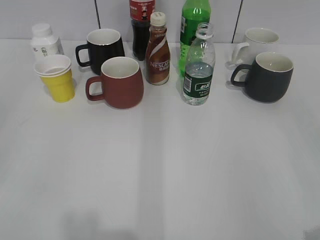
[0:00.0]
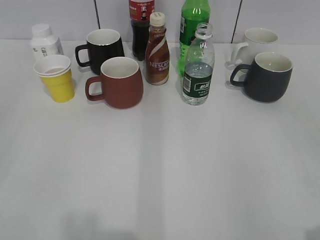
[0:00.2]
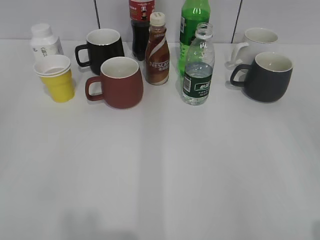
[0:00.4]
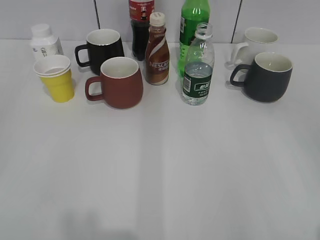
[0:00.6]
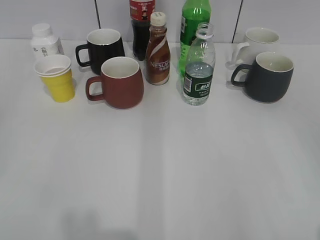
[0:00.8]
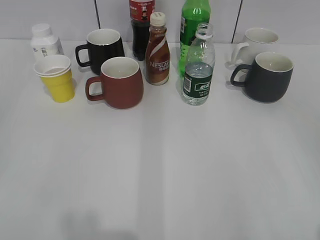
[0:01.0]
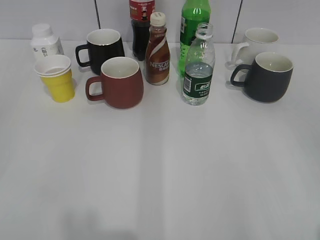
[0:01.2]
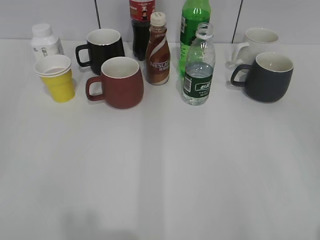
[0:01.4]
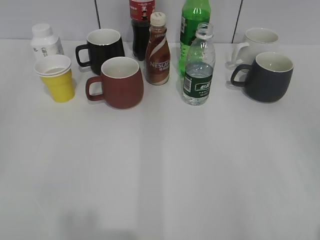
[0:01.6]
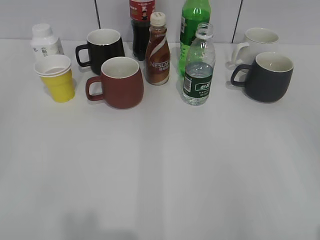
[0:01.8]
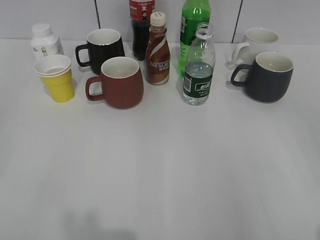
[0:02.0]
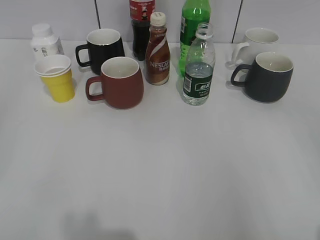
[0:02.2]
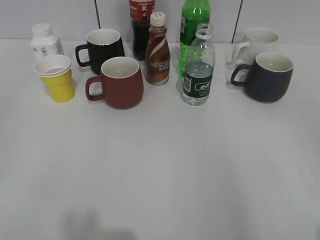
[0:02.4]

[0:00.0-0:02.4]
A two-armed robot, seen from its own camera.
0:01.2 to 0:02.4: Both grippers stay put.

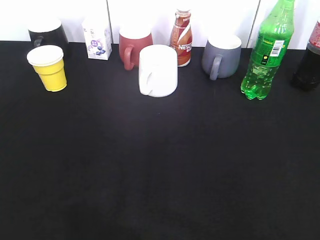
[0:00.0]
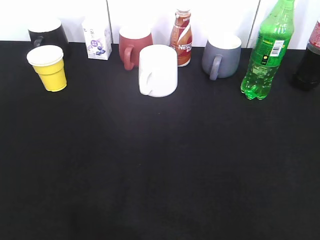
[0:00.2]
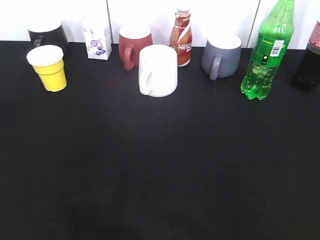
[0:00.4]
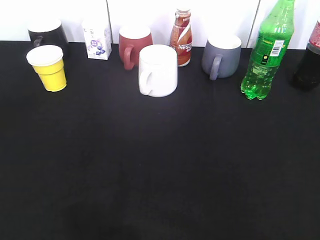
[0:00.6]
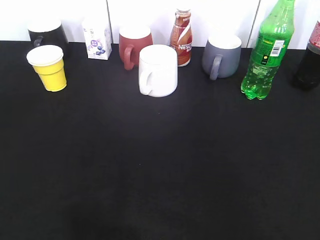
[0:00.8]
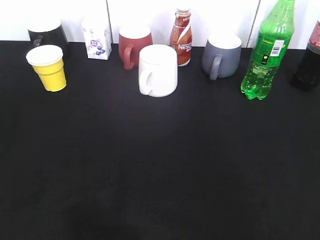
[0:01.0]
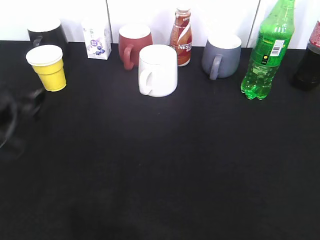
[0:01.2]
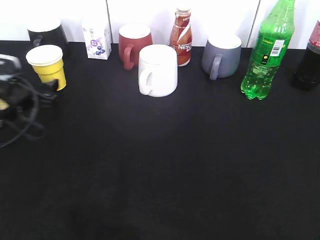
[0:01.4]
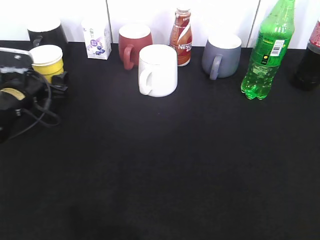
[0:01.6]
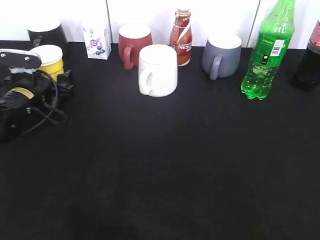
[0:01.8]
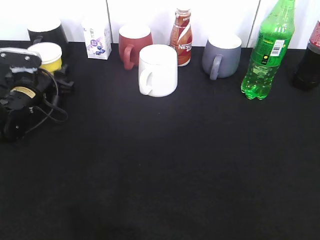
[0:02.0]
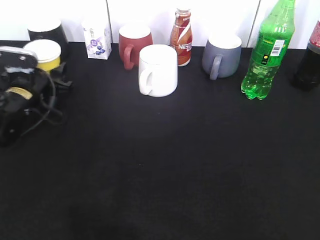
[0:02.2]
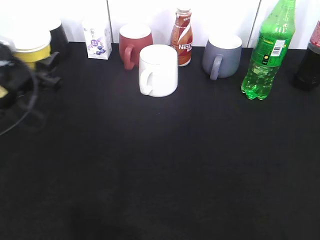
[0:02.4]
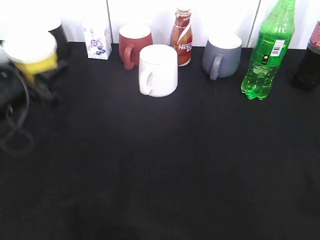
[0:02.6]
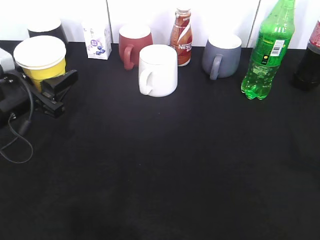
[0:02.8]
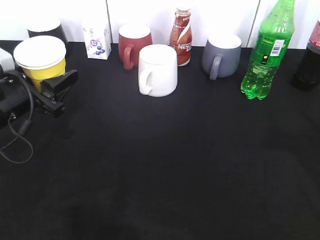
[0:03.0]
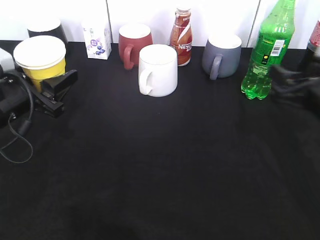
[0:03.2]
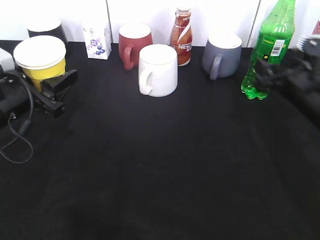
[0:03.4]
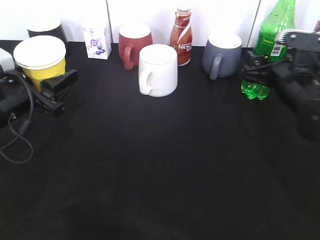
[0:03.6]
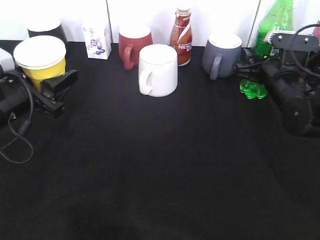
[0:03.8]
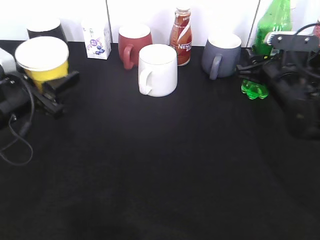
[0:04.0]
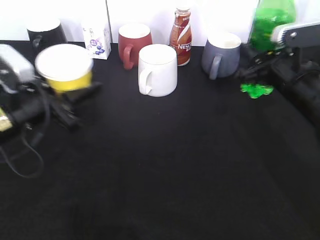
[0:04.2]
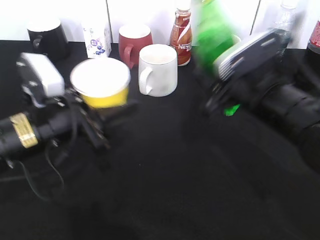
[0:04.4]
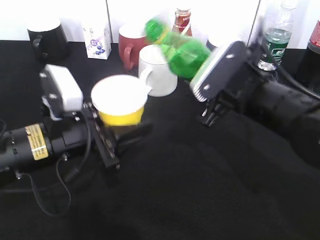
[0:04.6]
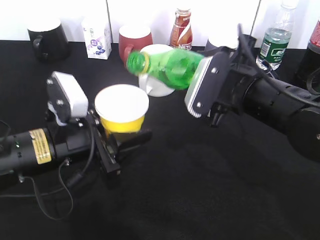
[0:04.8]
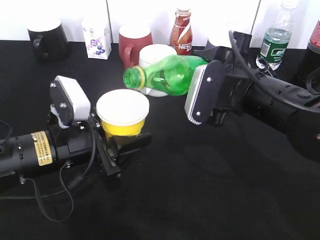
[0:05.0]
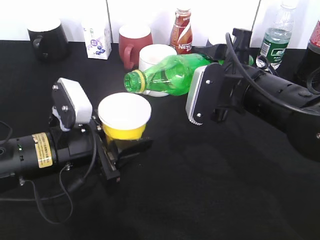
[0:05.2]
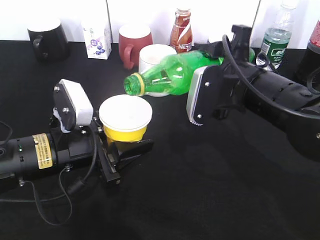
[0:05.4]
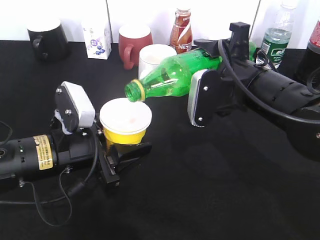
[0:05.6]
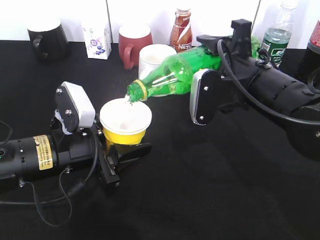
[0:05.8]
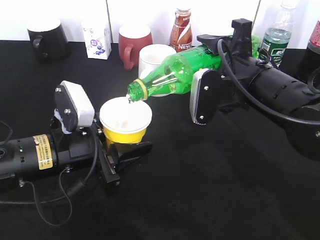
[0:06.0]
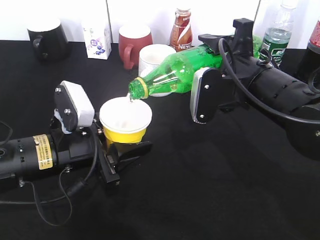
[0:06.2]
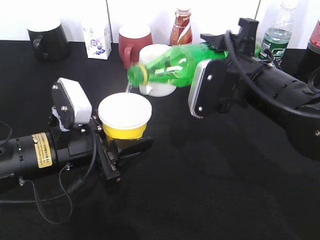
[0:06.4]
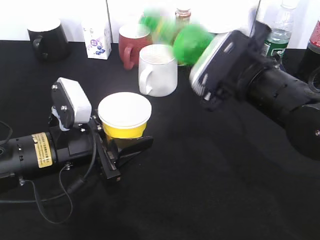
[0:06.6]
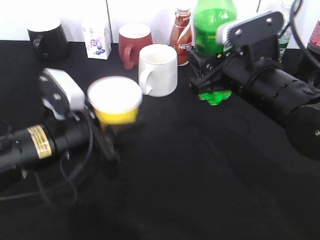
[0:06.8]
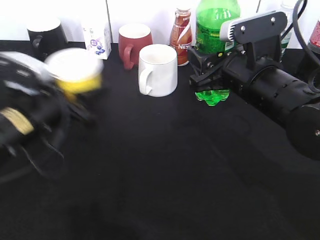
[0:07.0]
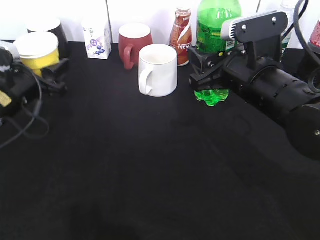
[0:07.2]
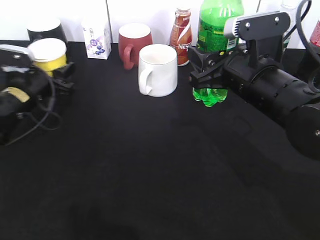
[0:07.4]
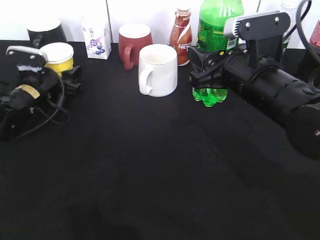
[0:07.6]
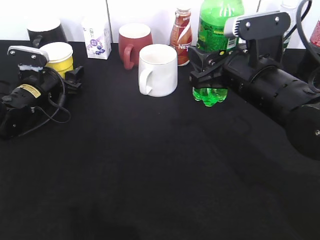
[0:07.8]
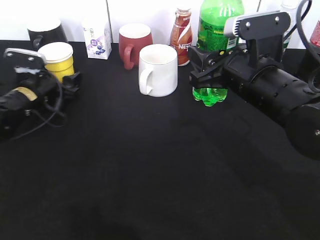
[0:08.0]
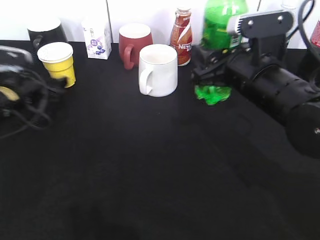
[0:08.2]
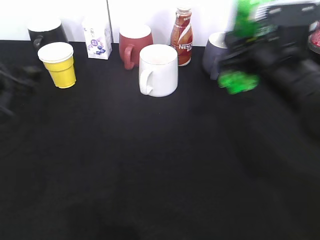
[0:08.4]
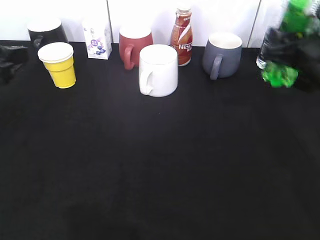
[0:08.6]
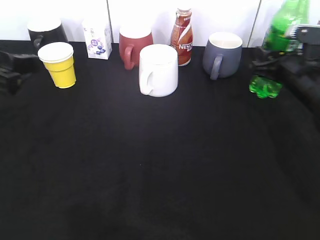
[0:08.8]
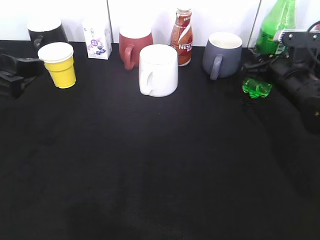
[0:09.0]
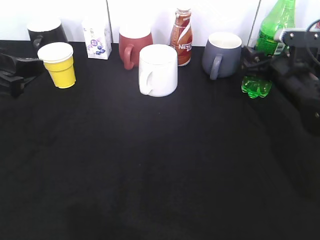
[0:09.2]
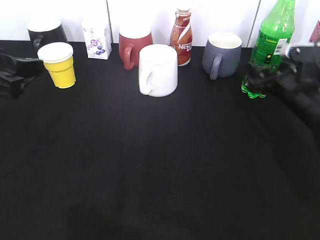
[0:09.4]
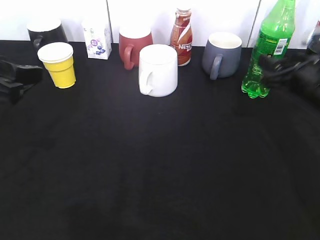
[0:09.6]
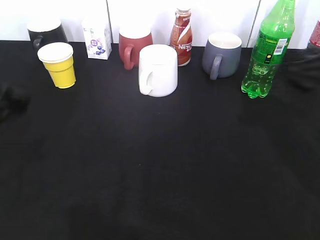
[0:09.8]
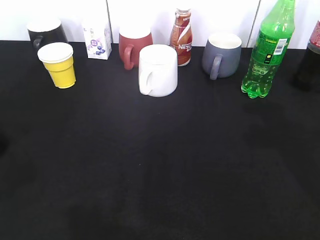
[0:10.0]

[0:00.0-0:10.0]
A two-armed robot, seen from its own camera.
Step, 0:00.0 to 0:02.0: Grasp the yellow paper cup with left gripper.
Step, 0:02.2 to 0:02.8: Lift the yellow paper cup with left gripper.
Step, 0:03.2 to 0:03.6: Grasp the bottle with sprite with right gripper.
Step, 0:04.0 to 0:06.4: Pour the sprite from bottle to cup with right gripper.
Step, 0:06.6 to 0:09.4: Place the sprite bottle on the table with right gripper.
0:00.0 to 0:01.4: The left gripper heads forward and downward, covering about 35 cm, and closes and opens again.
0:01.4 to 0:02.8: The left gripper moves backward, about 5 cm, and closes.
0:02.8 to 0:04.2: The right gripper is displaced forward, to the left and downward by approximately 20 cm, and closes its fingers.
0:04.2 to 0:05.8: The left gripper goes about 5 cm to the right. Meanwhile the right gripper heads to the left, covering roughly 5 cm.
0:05.8 to 0:07.2: The left gripper shifts approximately 15 cm to the left and forward.
0:07.2 to 0:08.6: The left gripper shifts some 15 cm upward and backward, and opens. The right gripper travels to the right by about 10 cm.
0:08.6 to 0:10.0: The right gripper is displaced upward and backward by about 15 cm, and opens up.
